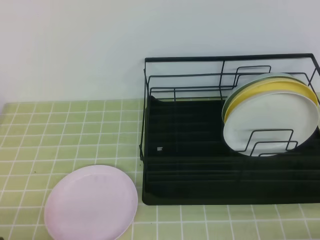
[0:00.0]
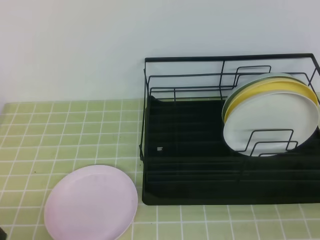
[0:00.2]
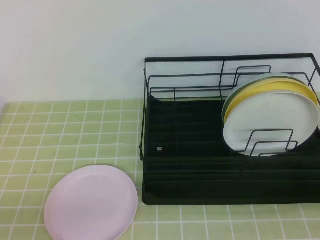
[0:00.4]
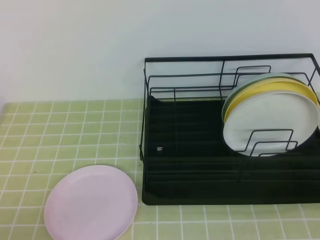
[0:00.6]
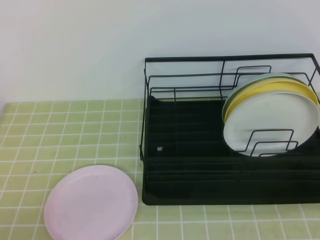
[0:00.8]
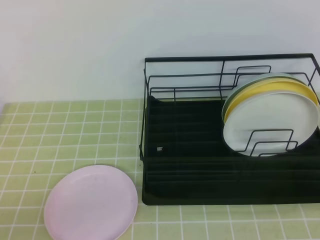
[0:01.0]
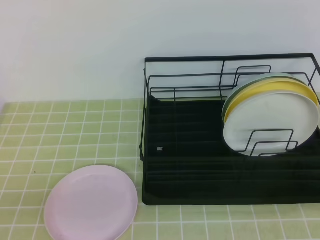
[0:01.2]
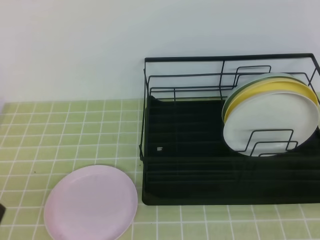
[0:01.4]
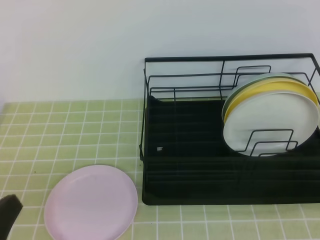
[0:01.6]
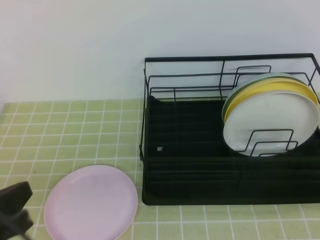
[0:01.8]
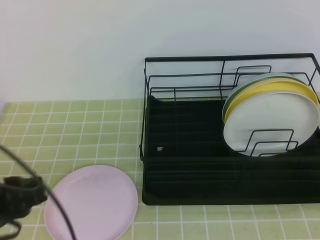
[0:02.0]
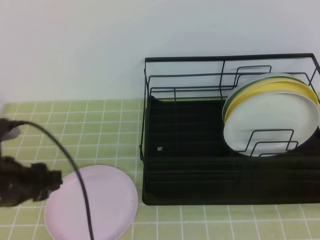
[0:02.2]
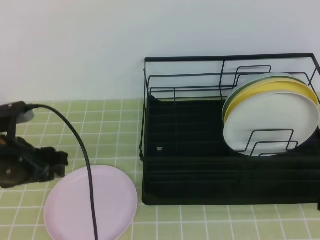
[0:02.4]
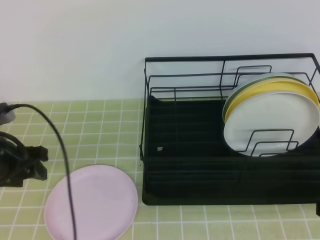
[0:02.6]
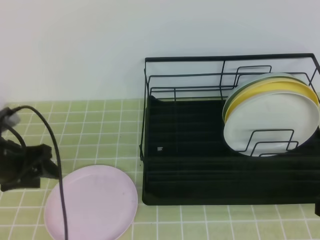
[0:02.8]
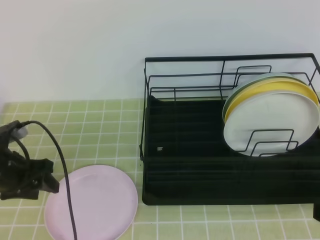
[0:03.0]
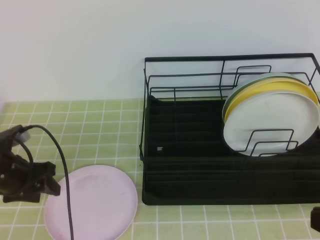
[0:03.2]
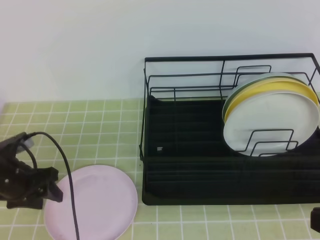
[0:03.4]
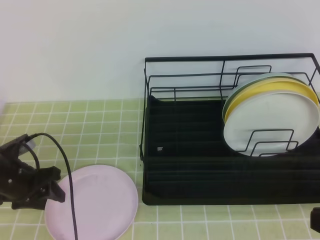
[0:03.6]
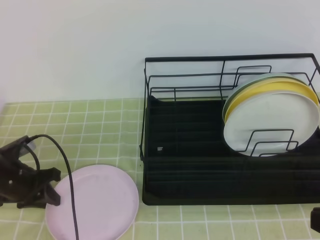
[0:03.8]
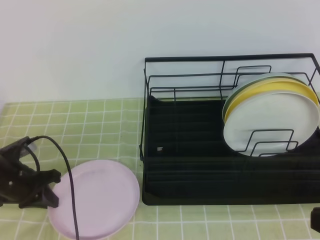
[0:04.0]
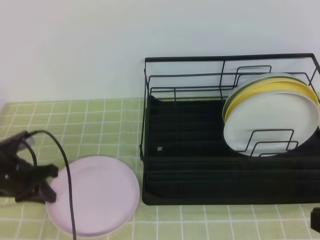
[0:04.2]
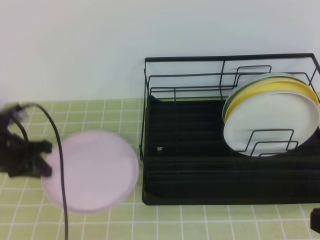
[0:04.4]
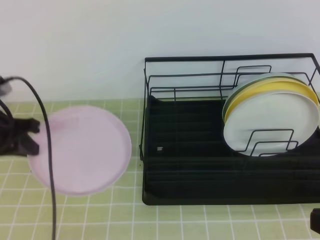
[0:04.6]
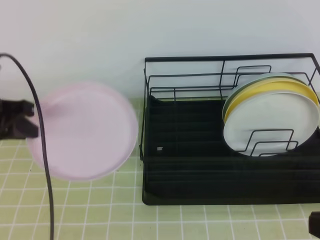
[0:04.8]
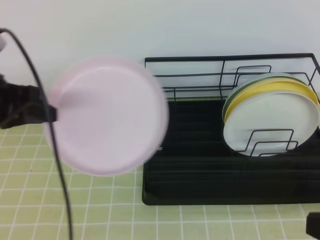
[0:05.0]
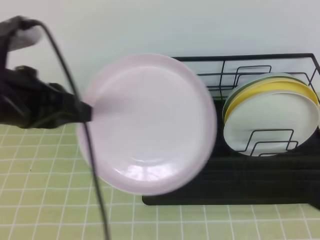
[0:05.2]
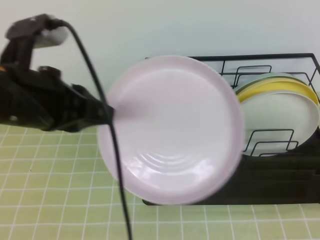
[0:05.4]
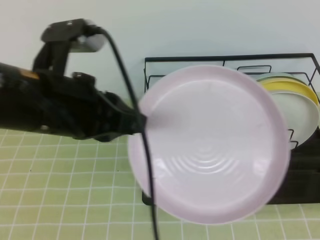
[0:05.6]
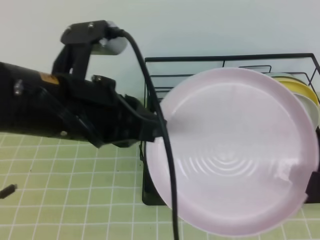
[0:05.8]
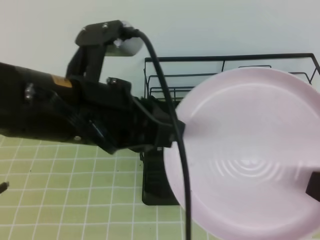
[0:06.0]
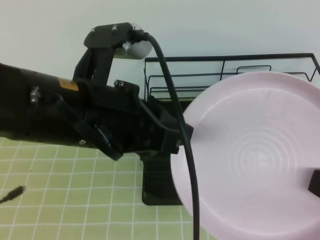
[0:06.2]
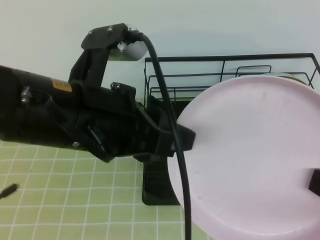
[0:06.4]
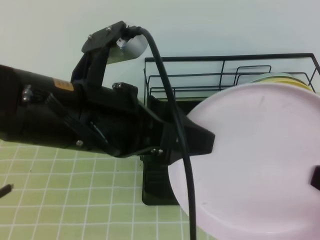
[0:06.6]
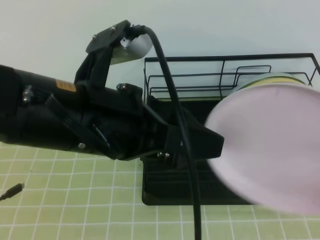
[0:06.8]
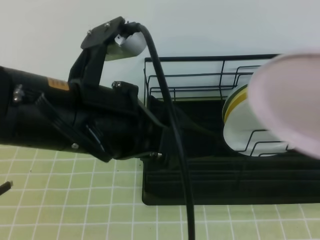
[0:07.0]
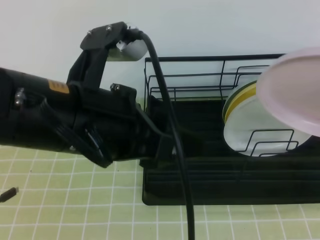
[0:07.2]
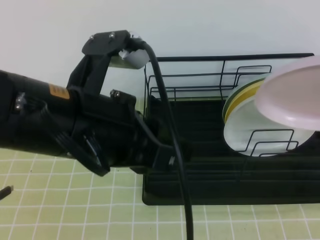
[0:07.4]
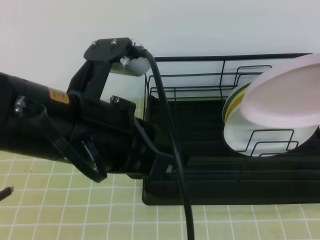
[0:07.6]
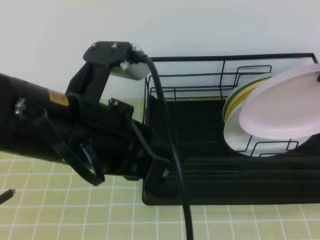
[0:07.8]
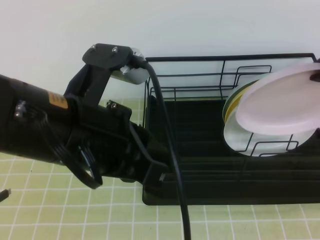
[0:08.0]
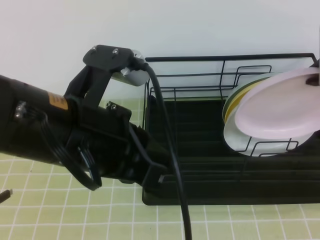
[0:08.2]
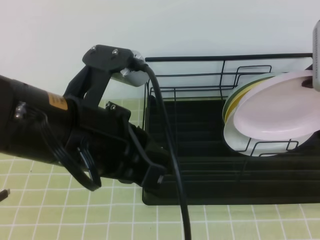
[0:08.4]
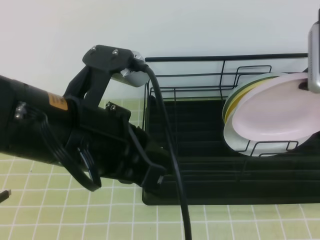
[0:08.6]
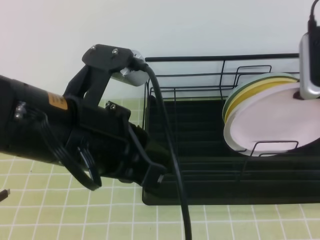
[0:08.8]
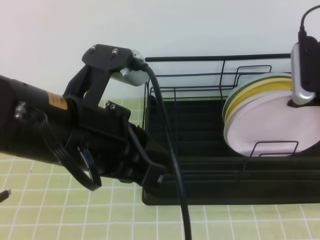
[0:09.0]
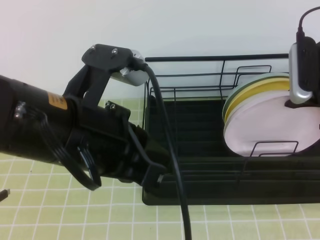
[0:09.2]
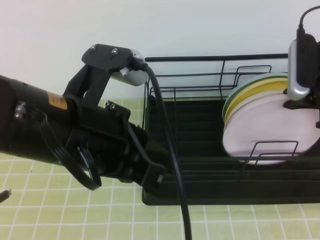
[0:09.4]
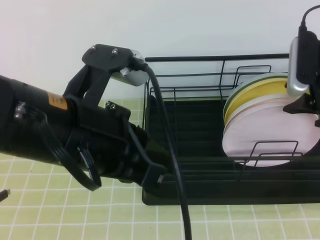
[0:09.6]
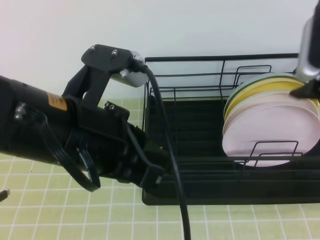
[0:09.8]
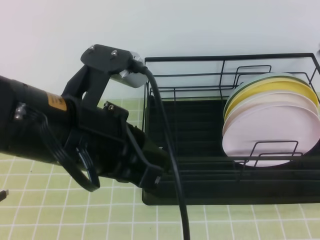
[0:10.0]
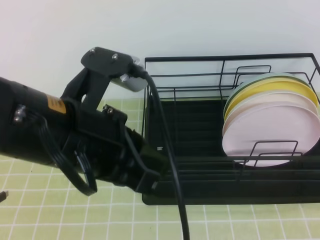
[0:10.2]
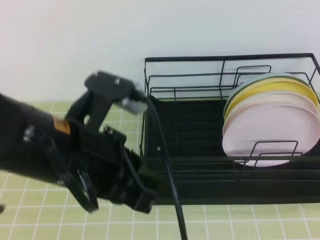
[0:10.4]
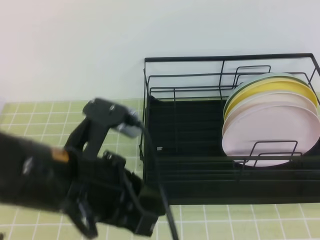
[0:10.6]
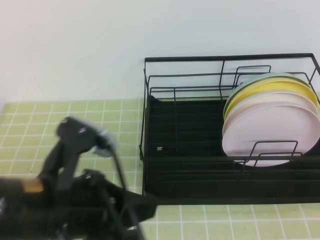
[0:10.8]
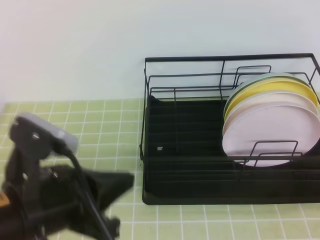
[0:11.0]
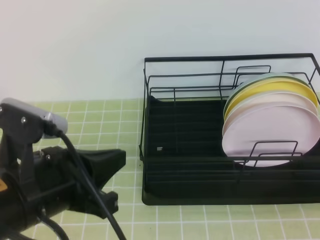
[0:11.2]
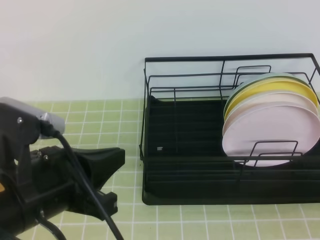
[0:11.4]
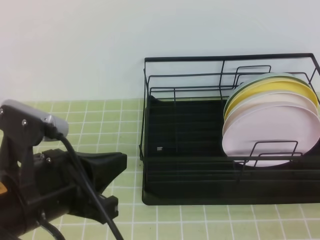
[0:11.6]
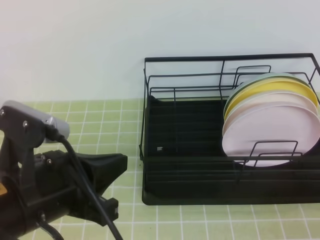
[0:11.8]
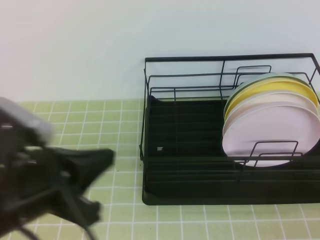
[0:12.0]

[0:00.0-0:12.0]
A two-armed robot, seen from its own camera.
Step, 0:00.0 to 0:03.4: Left grab the pink plate.
Step, 0:05.4 to 0:08.0: Right place it at the front of the shelf.
0:00.0 to 0:01.6: Both grippers move upward, some 10 cm.
0:01.6 to 0:03.0: The left gripper goes some 25 cm forward, and opens up.
0:03.0 to 0:04.4: The left gripper closes its fingers.
0:04.4 to 0:06.0: The right gripper opens up, while the left gripper travels to the right, upward and backward by about 30 cm.
0:06.0 to 0:07.6: The left gripper opens, then closes once more, while the right gripper goes roughly 15 cm forward and upward, and closes up.
0:07.6 to 0:09.0: The right gripper shifts roughly 15 cm forward and downward.
0:09.0 to 0:10.4: The right gripper moves backward and upward, some 25 cm, and opens and closes again.
0:10.4 to 0:12.0: The left gripper is displaced to the left by approximately 5 cm. The right gripper goes approximately 25 cm downward.

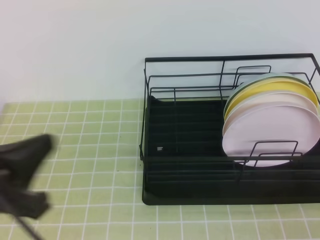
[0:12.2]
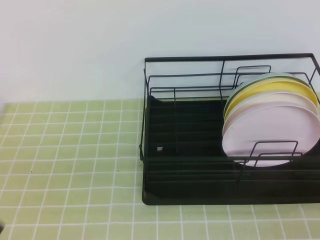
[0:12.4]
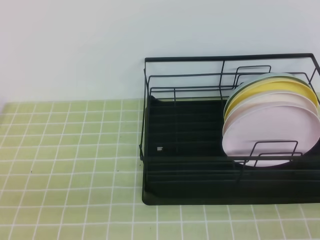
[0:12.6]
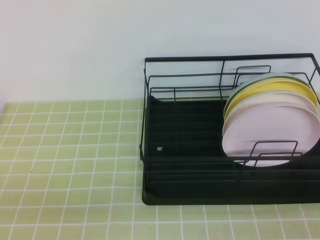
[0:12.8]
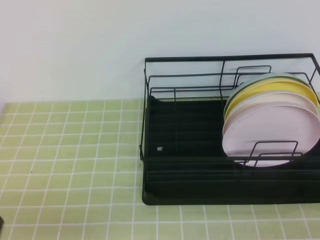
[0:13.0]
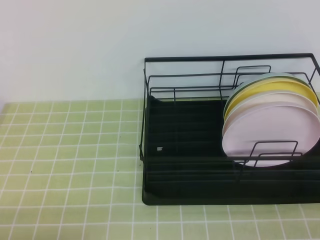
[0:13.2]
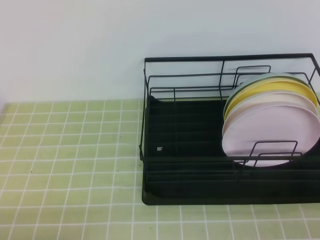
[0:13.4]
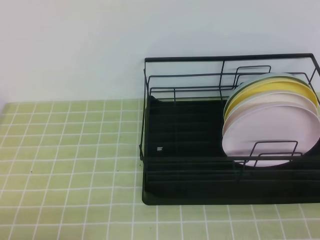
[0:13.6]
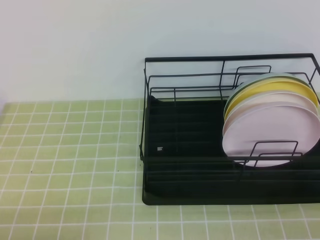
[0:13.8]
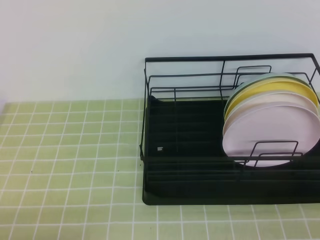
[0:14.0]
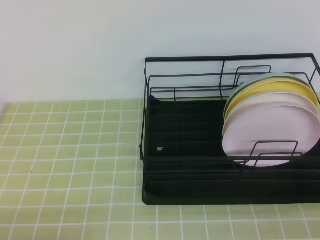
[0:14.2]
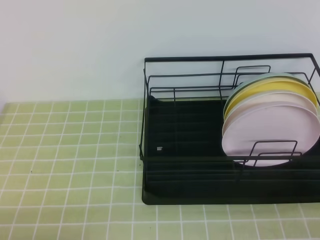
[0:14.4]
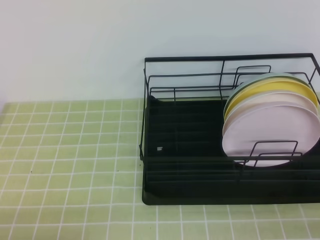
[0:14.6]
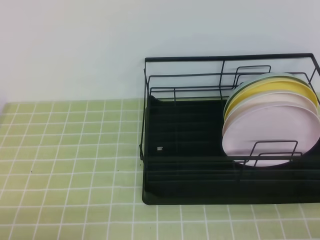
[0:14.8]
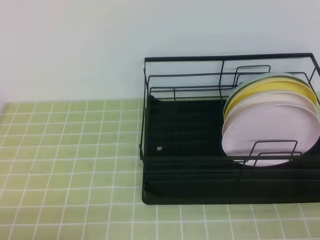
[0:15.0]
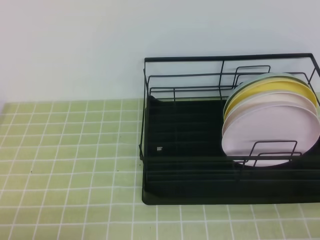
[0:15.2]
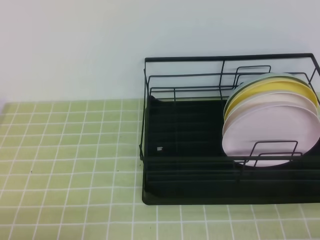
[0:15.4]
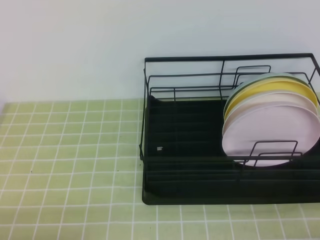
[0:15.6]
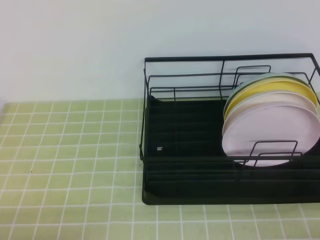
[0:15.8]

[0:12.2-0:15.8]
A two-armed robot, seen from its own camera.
0:12.2 to 0:14.0: The left gripper shifts roughly 15 cm downward and backward.
